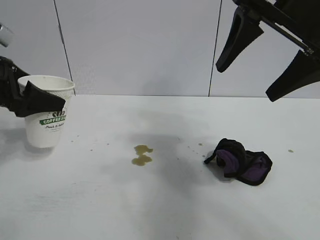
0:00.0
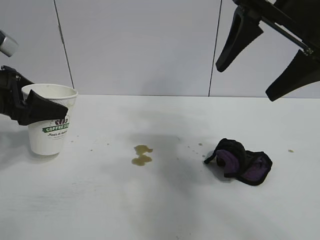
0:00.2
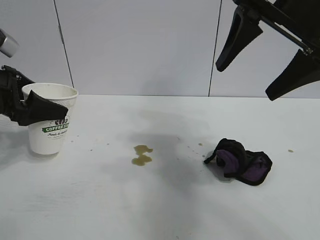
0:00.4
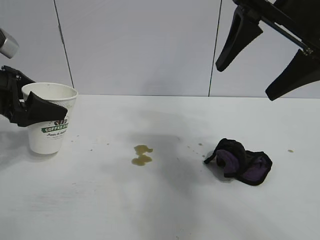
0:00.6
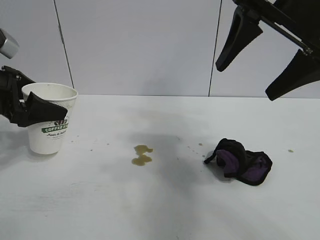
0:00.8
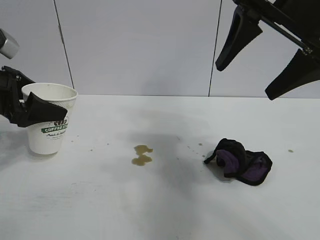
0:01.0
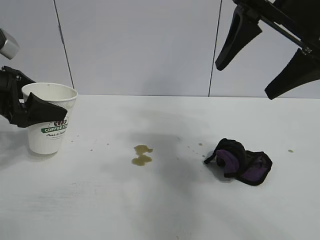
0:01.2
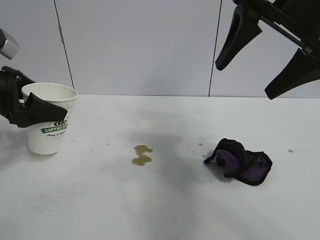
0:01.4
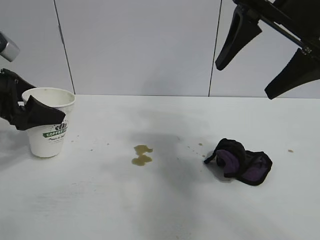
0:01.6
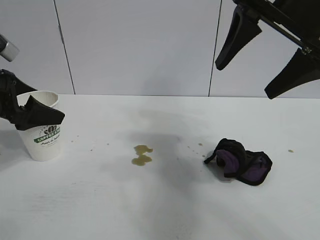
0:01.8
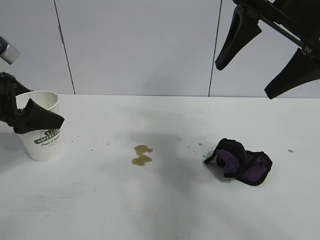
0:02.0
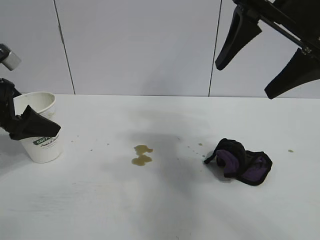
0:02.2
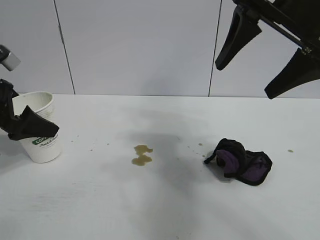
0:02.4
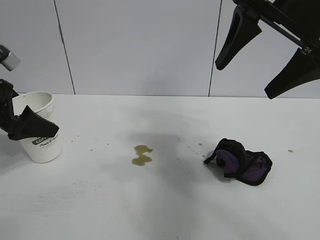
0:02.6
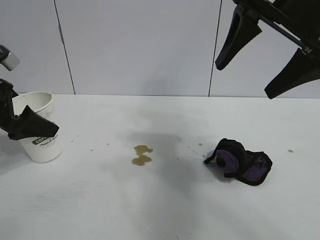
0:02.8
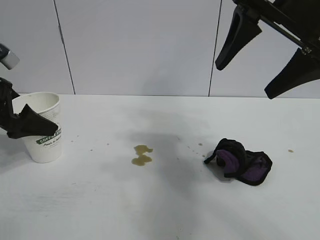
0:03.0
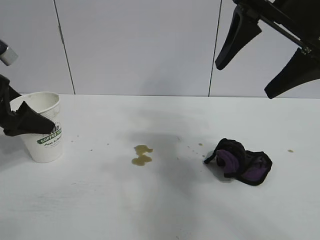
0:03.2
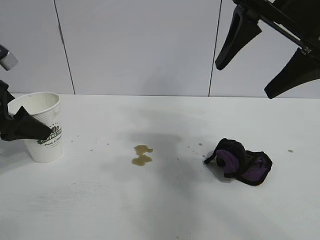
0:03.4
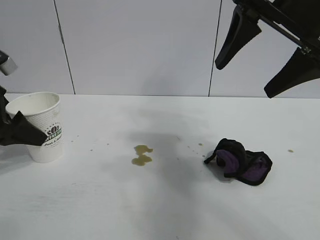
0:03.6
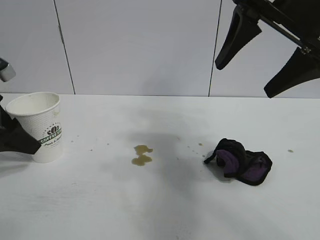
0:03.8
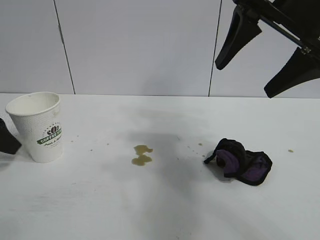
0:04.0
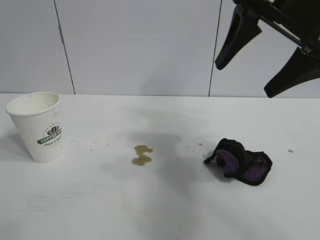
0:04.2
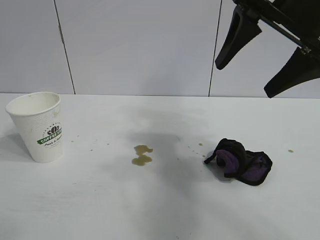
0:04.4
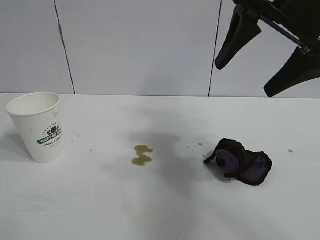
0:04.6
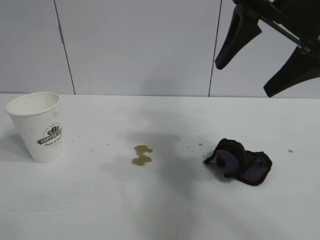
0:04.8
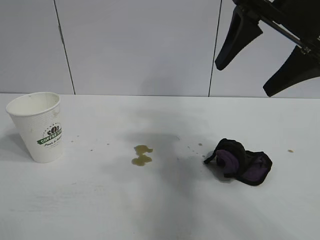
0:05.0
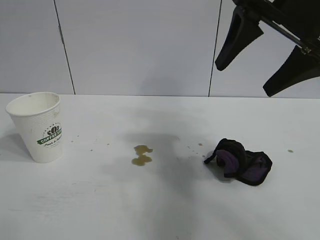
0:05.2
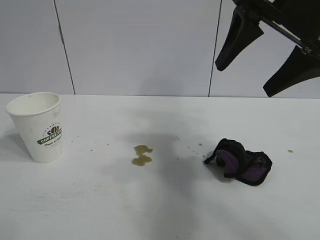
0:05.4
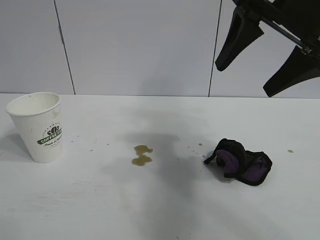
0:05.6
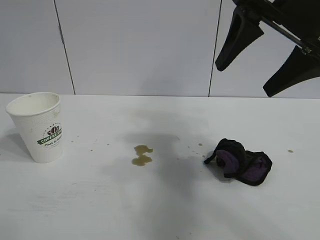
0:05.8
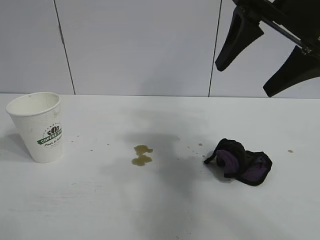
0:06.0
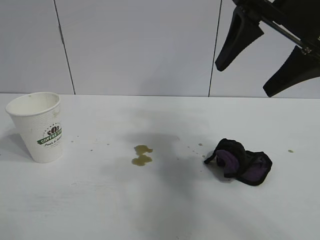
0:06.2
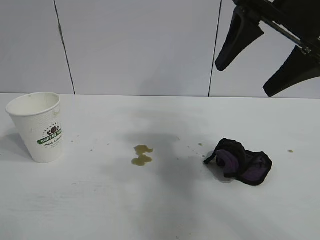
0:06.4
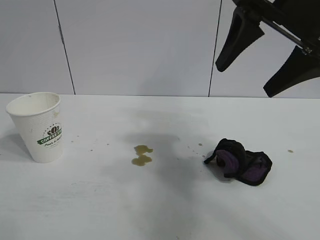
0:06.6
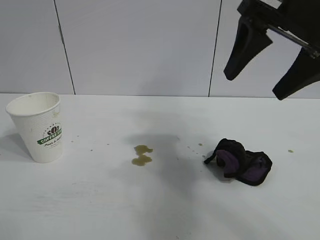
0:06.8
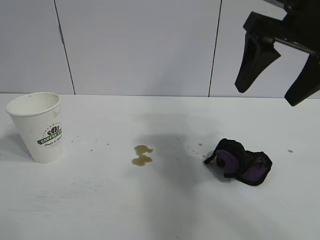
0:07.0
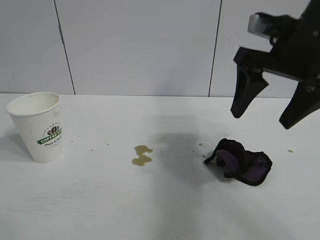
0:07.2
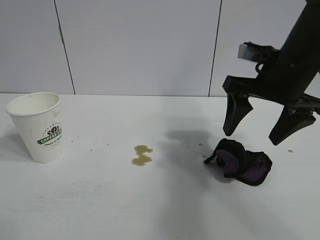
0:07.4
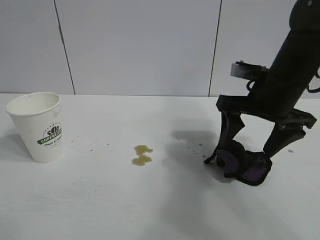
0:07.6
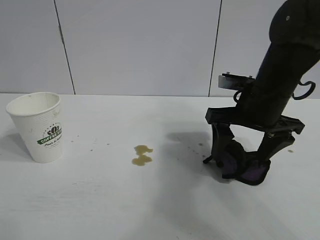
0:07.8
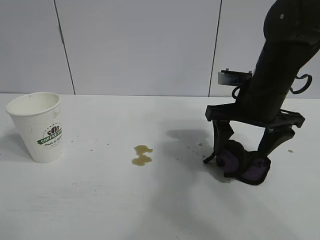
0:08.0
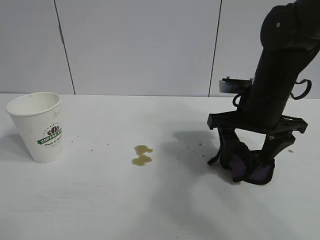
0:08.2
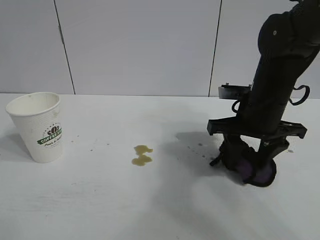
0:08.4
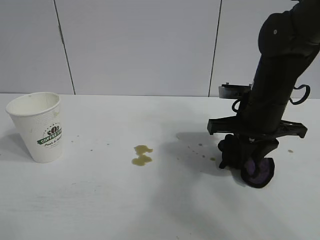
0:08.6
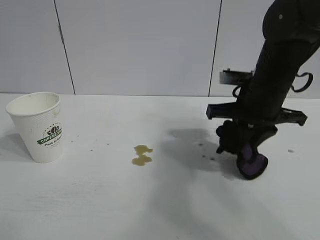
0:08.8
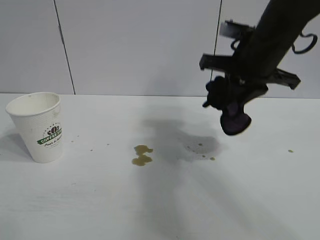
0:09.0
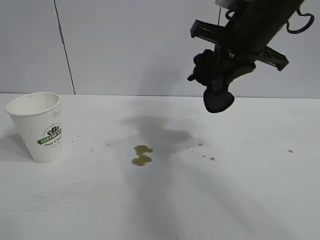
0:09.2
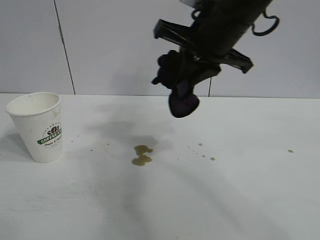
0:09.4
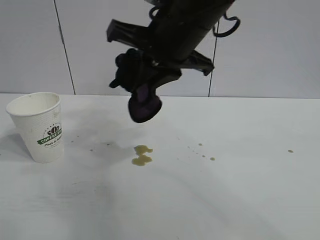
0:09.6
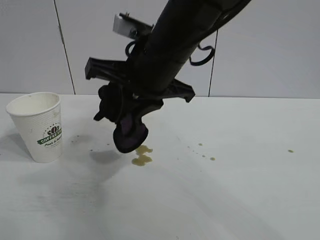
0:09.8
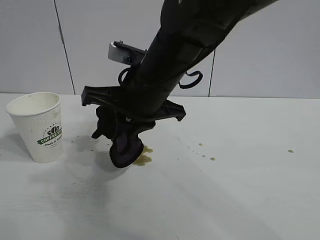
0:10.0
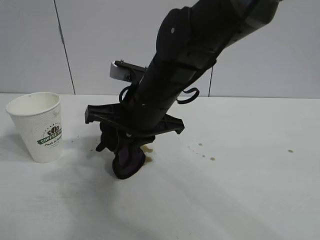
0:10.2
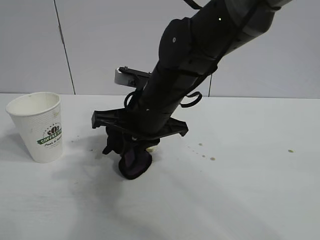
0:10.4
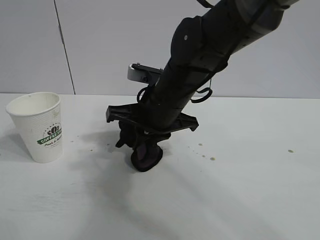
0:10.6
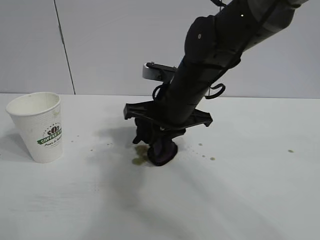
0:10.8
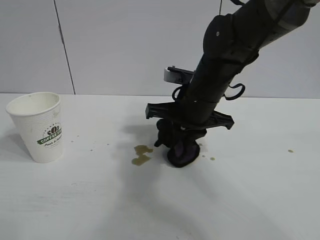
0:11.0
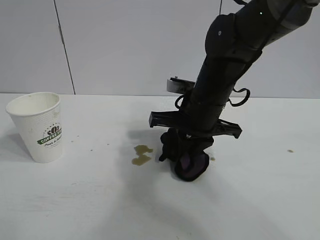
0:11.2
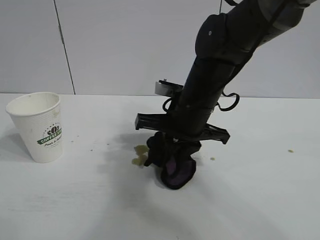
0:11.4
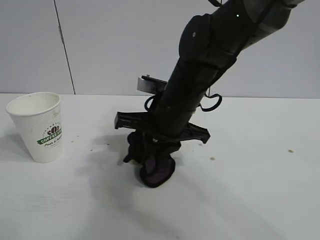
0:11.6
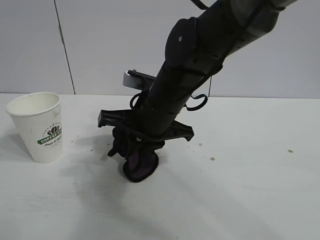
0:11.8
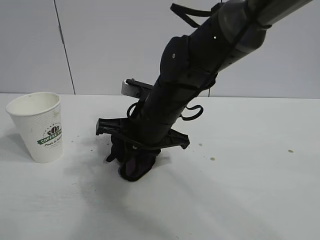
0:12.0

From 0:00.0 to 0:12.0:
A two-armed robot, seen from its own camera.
Task of the whole recording: the left gripper pick up the fallen cup and place it upright, the right gripper grasp the black rag and wipe the stain on the table, the right gripper put the black rag back in its original position.
Step, from 0:00.0 to 0:03.0: Stand the paper cup upright with left gripper.
Step, from 0:03.2 to 0:08.4: Grasp the rag with right gripper.

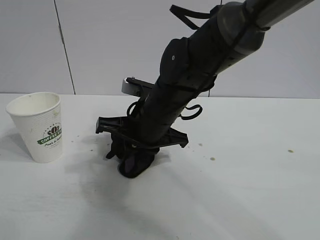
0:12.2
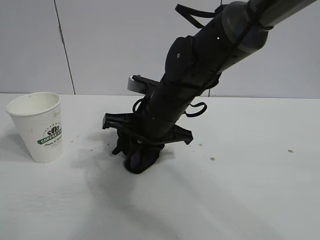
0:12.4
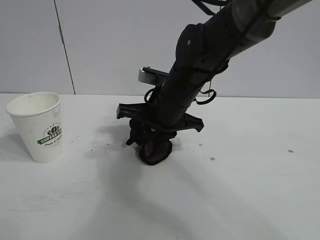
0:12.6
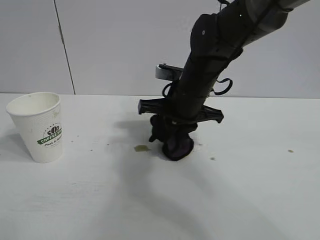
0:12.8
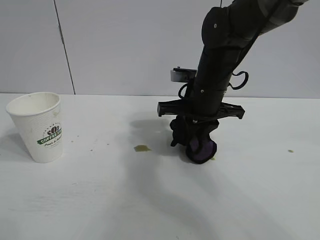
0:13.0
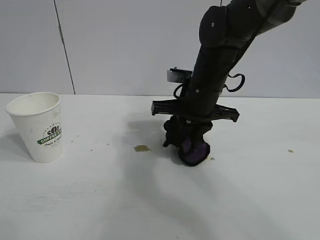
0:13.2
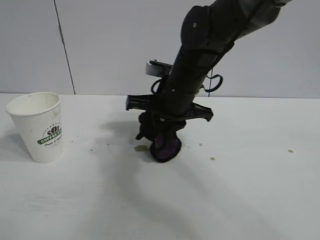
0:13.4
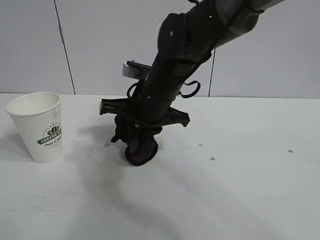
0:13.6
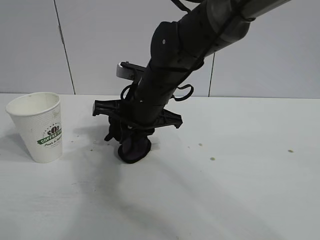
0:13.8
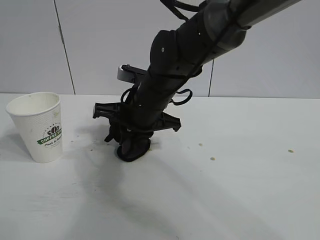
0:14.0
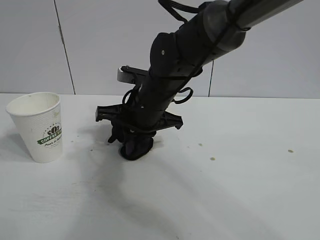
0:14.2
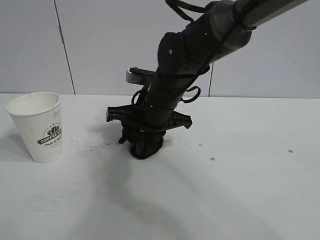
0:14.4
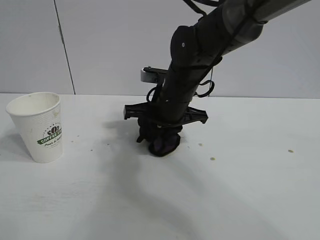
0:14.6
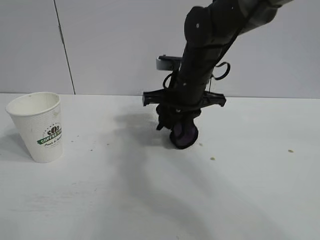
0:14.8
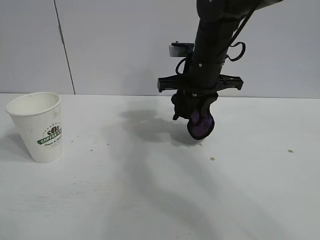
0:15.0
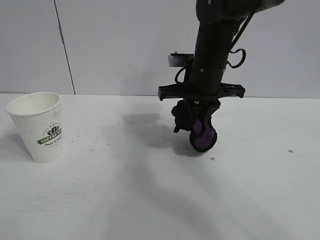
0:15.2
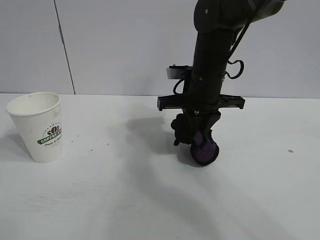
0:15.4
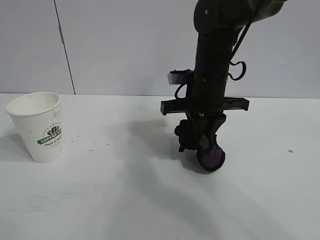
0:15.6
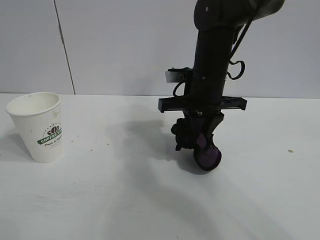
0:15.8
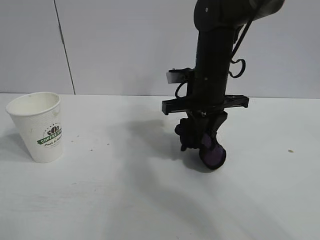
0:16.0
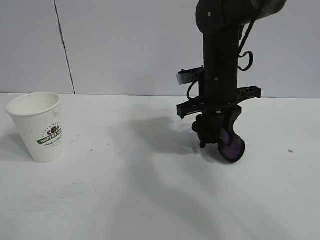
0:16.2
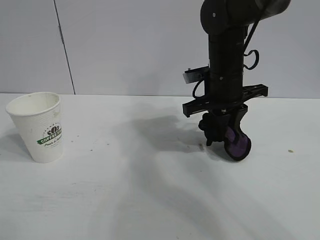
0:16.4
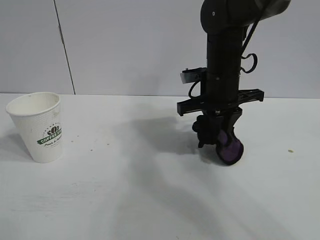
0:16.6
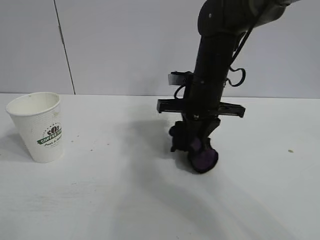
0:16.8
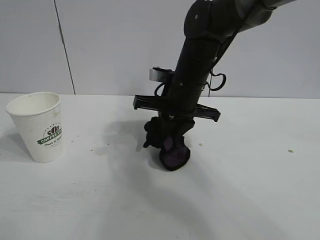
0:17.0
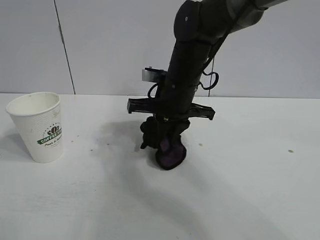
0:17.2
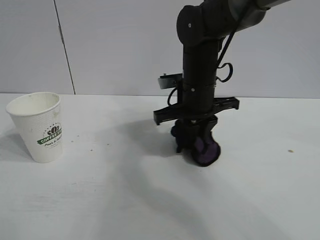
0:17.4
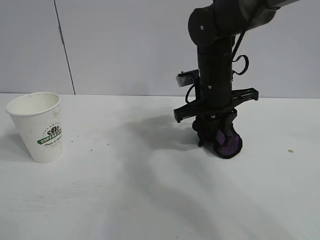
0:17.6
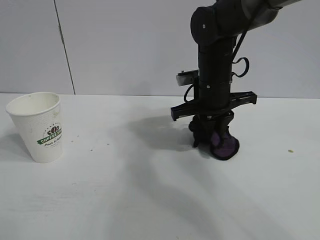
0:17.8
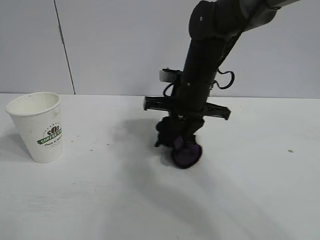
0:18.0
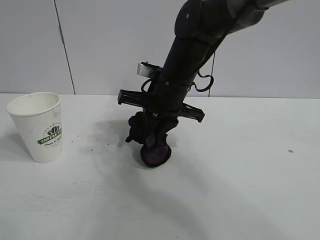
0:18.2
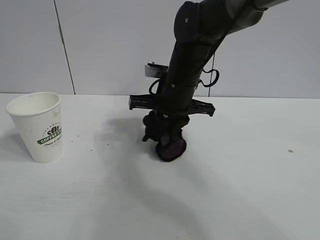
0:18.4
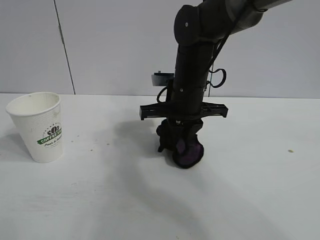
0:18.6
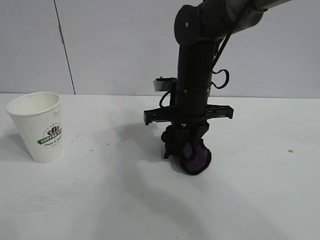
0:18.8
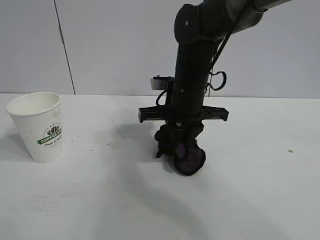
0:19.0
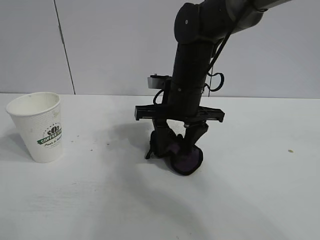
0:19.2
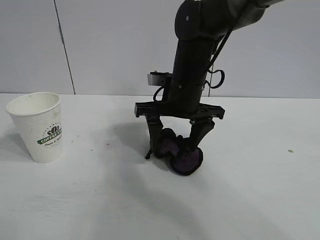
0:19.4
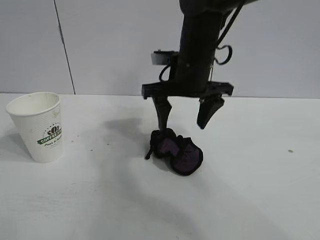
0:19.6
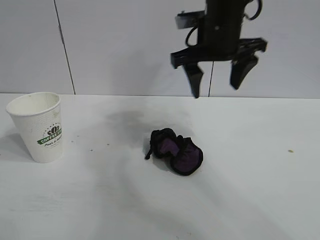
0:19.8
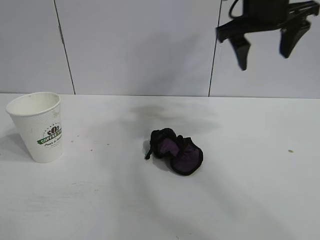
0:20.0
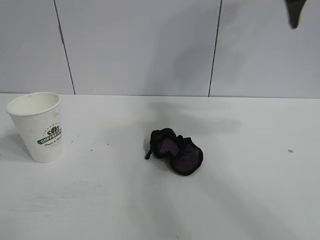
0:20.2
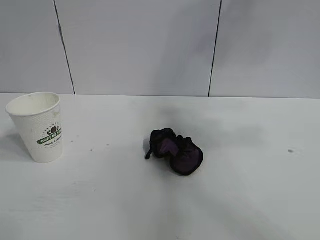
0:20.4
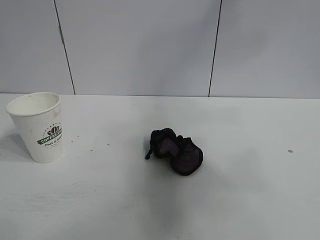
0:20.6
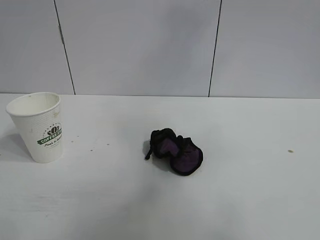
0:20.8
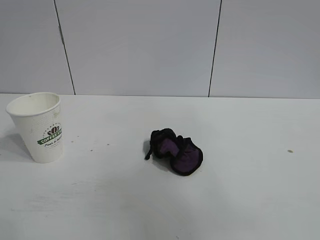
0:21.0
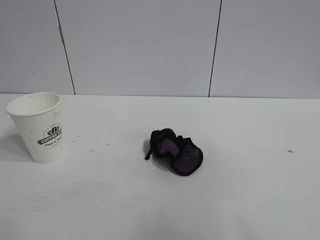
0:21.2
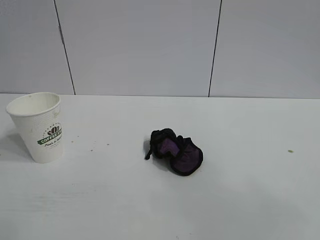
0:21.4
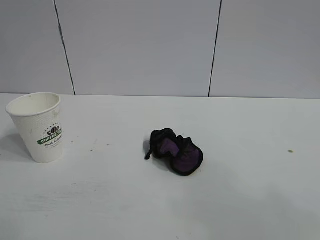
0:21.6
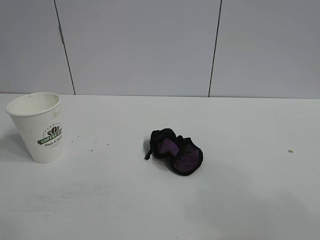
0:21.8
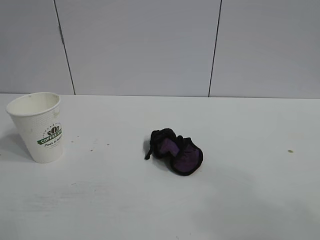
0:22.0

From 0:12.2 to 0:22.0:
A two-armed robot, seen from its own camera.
Task of the whole recording: the left gripper pick up the fallen cup and place it upright, the right gripper grasp the black rag and wipe the stain on the table, the right gripper put the black rag back in its original position.
Step, from 0:12.2 to 0:18.0: Wipe the stains off the table with the rag with right gripper.
Step, from 0:18.4 to 0:19.2: Place the rag on the table with right gripper.
